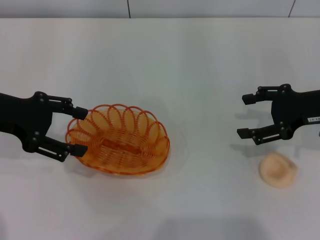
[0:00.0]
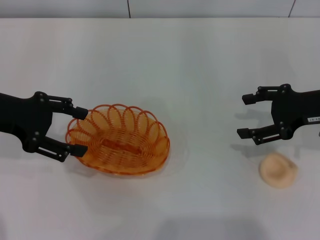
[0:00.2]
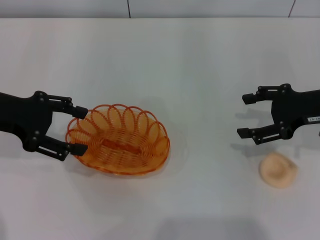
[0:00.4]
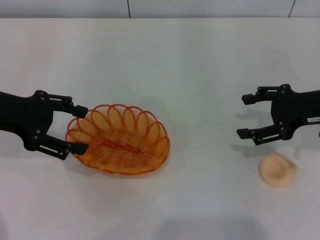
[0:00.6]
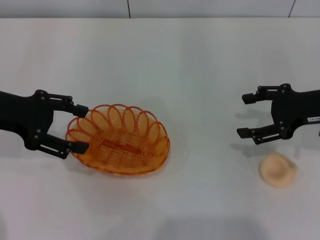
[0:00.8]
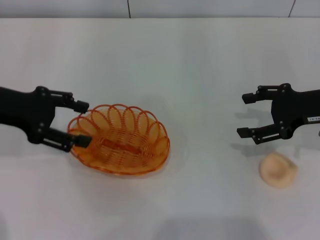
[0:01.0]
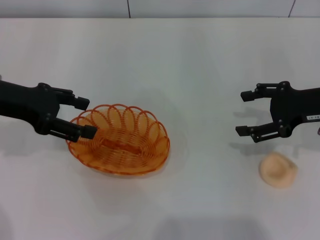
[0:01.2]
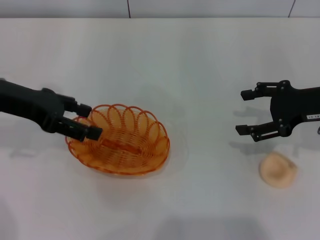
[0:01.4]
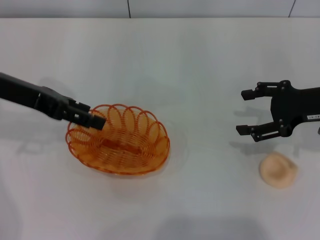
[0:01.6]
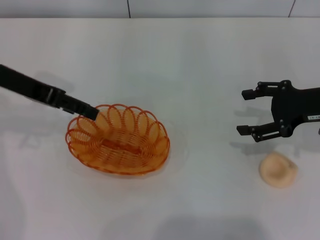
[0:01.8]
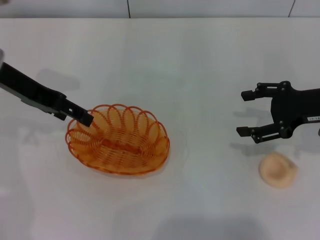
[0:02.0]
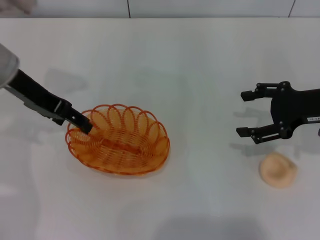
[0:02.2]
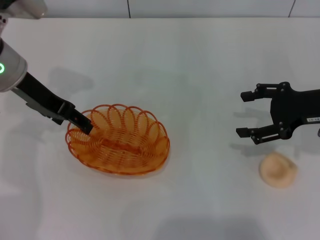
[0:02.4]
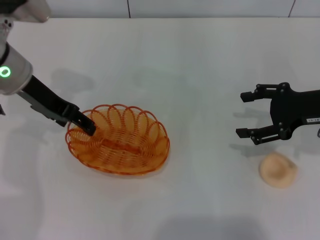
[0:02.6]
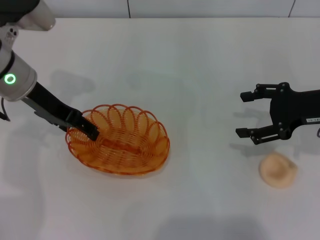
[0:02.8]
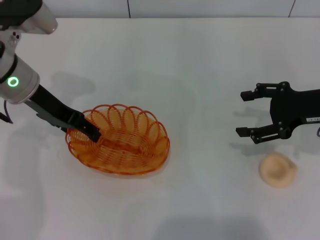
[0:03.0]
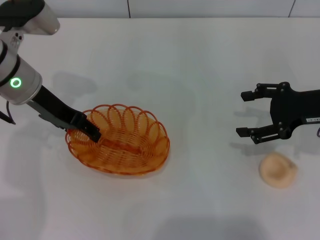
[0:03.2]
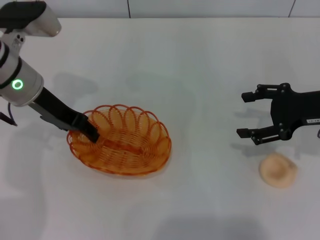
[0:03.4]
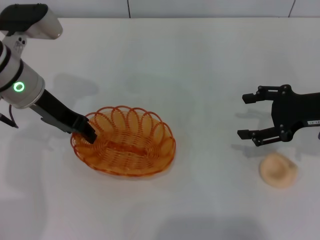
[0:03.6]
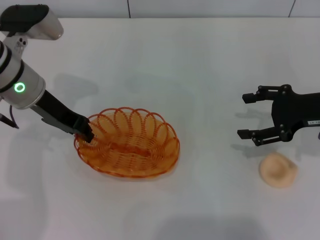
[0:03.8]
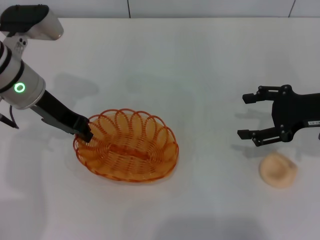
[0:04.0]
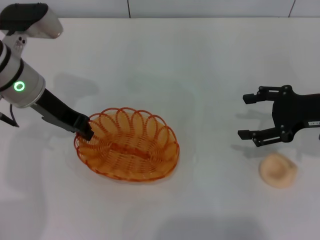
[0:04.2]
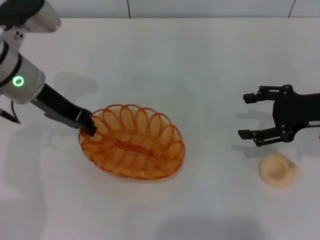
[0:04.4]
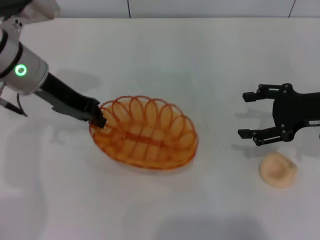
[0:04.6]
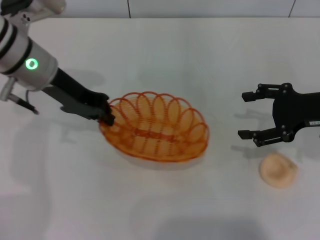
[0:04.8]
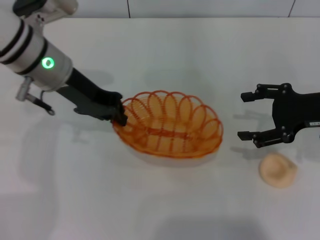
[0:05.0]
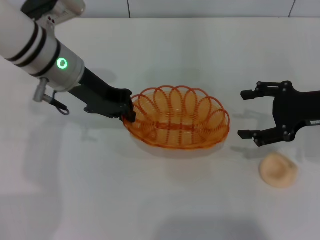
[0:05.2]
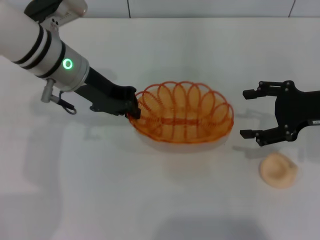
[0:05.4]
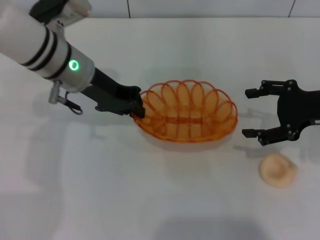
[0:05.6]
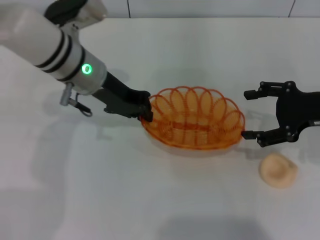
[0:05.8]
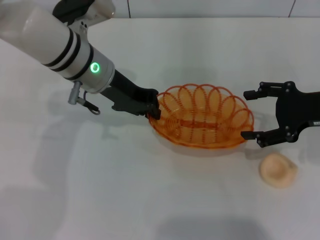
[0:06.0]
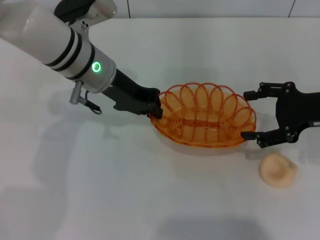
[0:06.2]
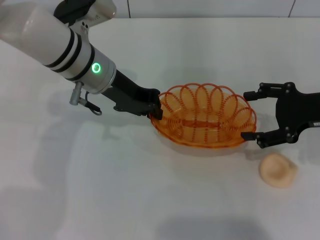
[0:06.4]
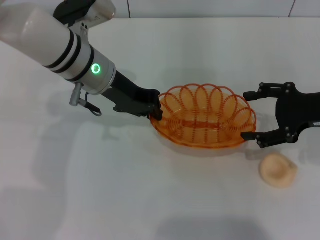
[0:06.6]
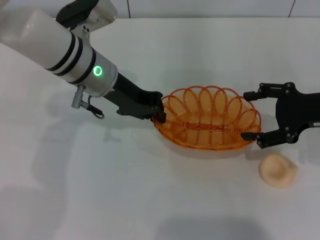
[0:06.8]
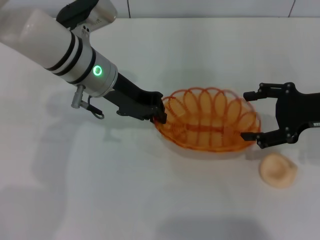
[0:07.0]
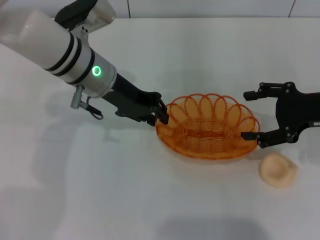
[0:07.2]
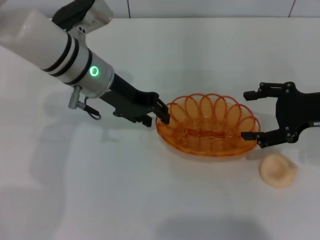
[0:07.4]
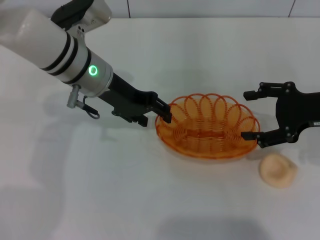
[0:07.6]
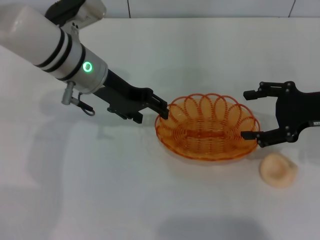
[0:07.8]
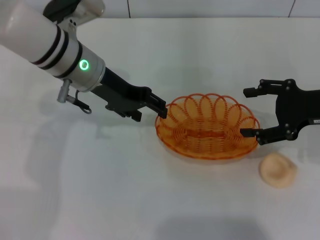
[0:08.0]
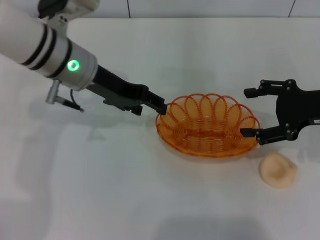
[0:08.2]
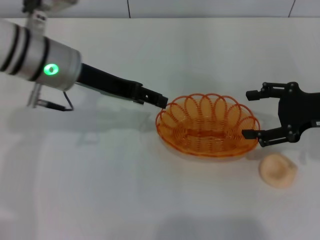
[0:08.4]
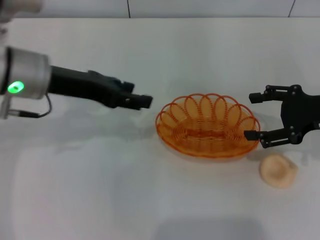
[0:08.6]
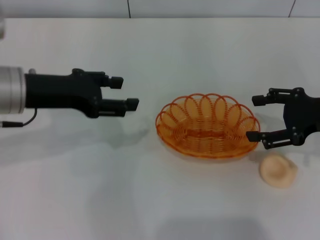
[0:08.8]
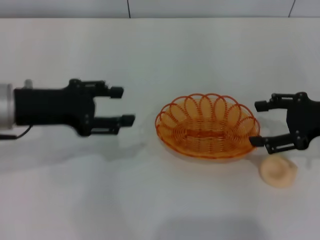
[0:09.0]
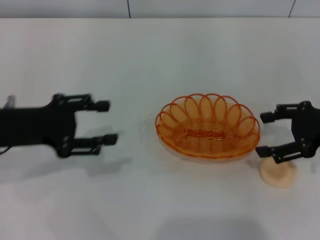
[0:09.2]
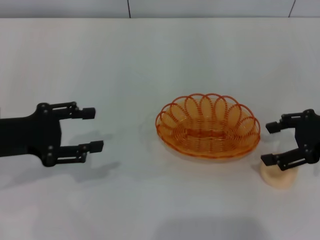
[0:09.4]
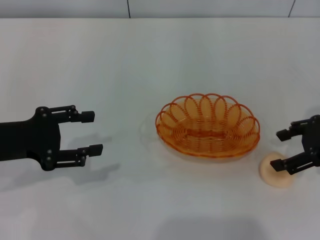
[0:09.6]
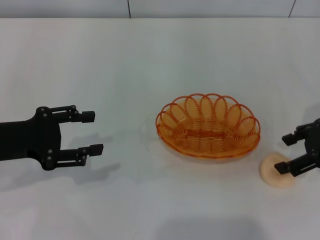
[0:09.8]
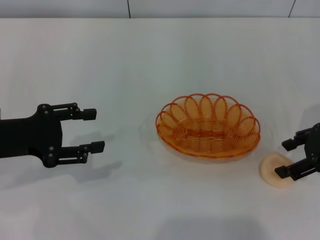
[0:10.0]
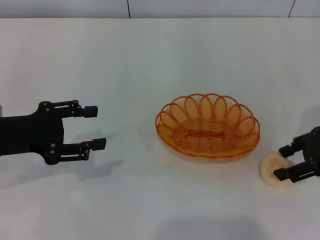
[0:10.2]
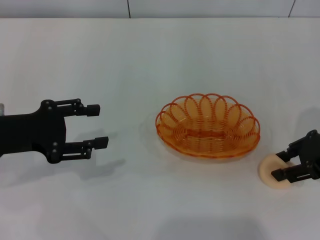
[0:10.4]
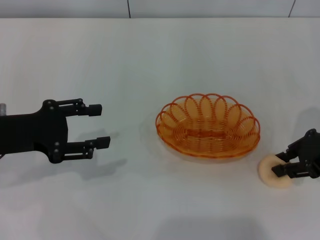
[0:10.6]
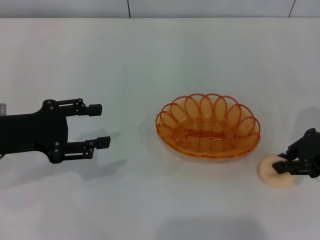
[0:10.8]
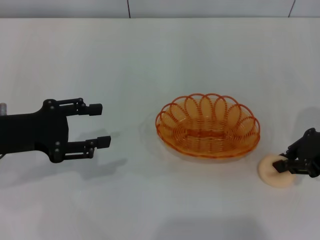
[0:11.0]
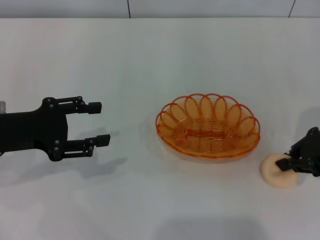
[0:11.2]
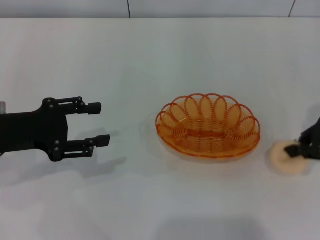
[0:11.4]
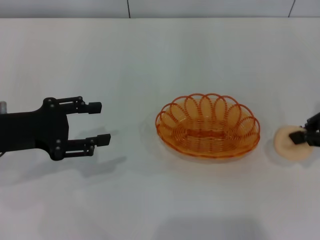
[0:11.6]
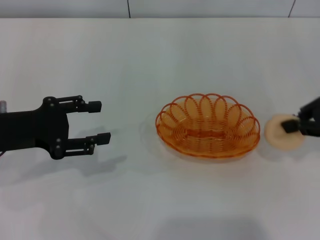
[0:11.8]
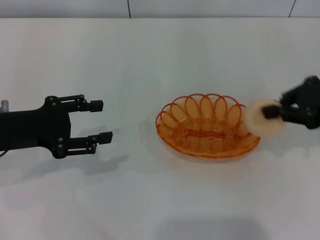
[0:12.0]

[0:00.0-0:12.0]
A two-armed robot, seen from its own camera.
Step, 0:00.0 to 0:04.6: Pick up the basket with the left gripper.
Step, 0:04.8 to 0:08.4: Place the basket in the center of view with the left gripper.
Step, 0:08.6 to 0:11.6: Pick up the egg yolk pastry with the right gripper.
0:01.6 to 0:03.0: The left gripper moves some 5 cm.
0:03.0 to 0:04.4: The left gripper closes its fingers.
0:04.4 to 0:06.0: The left gripper travels to the right by some 10 cm.
0:06.0 to 0:07.6: The left gripper opens up.
0:07.6 to 0:09.0: The left gripper goes approximately 15 cm to the left and backward.
0:09.0 to 0:10.4: The left gripper moves some 5 cm.
0:10.4 to 0:12.0: The right gripper heads upward, covering about 5 cm, and closes up.

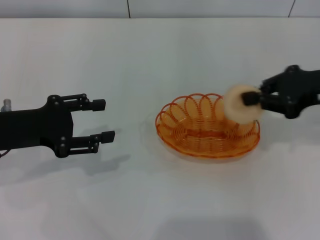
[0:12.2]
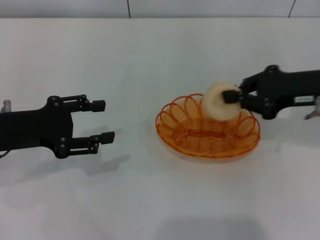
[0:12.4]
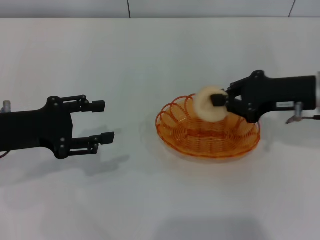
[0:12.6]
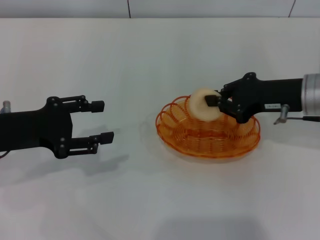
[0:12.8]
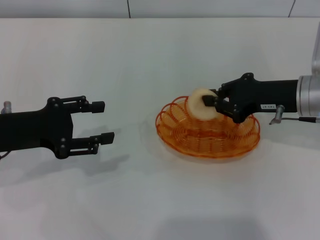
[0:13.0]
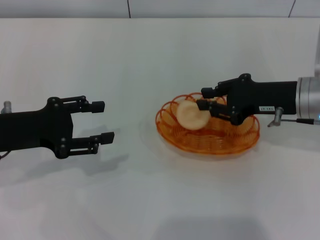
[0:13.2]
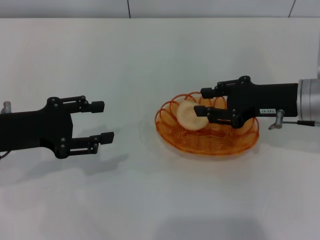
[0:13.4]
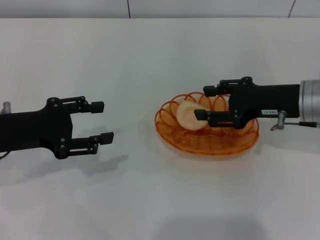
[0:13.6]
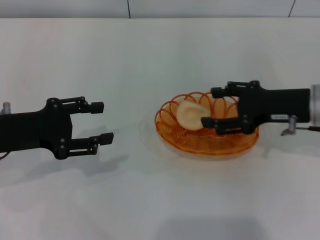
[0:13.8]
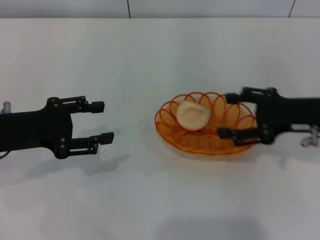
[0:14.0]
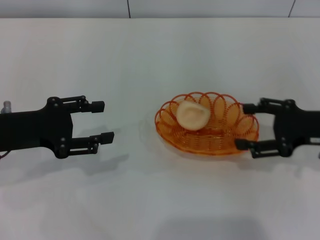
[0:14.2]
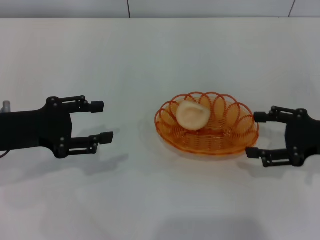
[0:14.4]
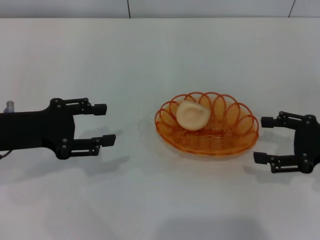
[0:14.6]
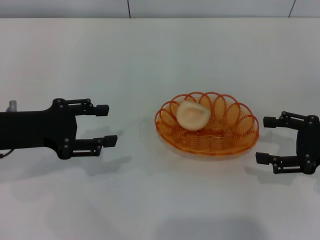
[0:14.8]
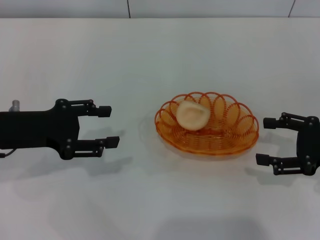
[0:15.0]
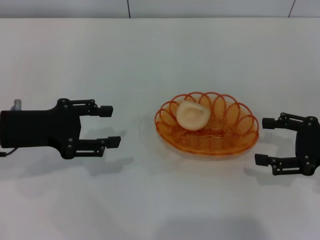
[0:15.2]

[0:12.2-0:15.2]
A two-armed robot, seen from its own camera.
Step, 0:12.2 to 0:13.4: Place the egg yolk pastry into the basket with the right gripper.
0:12.2 to 0:13.8: The right gripper heads downward, covering some 5 cm, and opens up.
0:13.8 to 0:15.2: The right gripper heads to the right and backward, covering approximately 10 cm.
